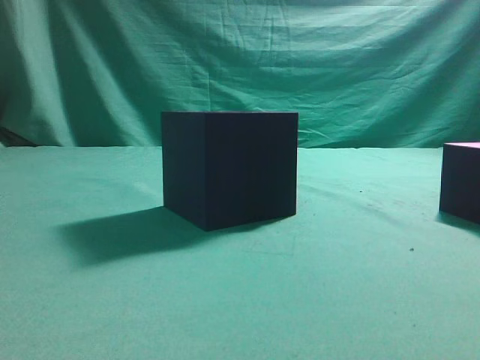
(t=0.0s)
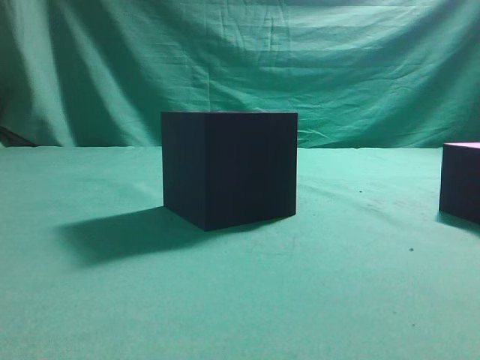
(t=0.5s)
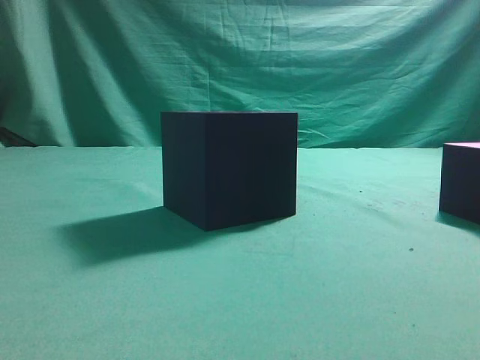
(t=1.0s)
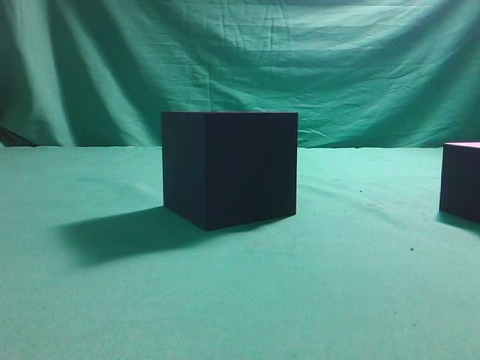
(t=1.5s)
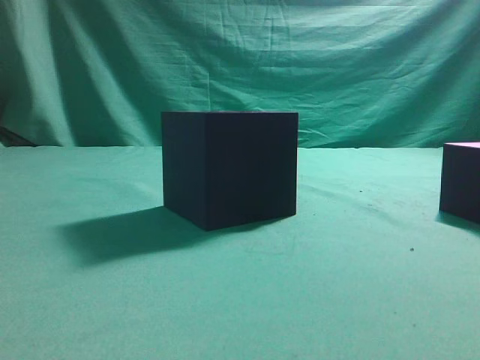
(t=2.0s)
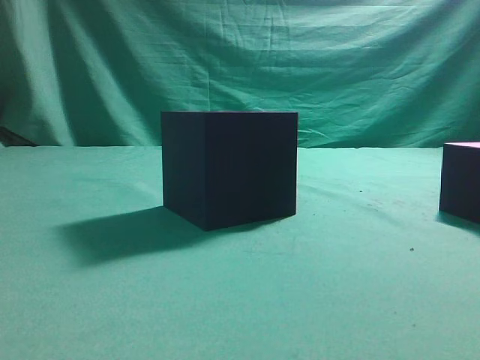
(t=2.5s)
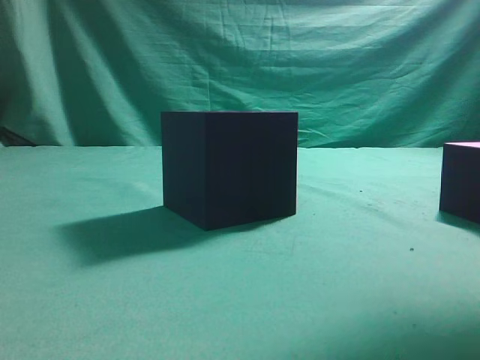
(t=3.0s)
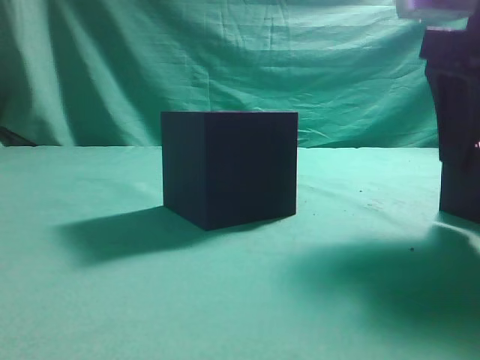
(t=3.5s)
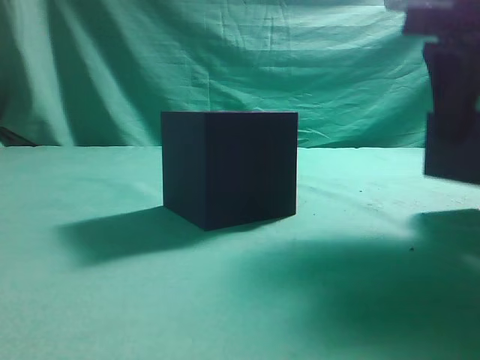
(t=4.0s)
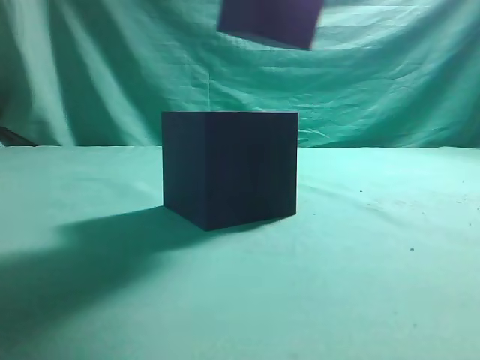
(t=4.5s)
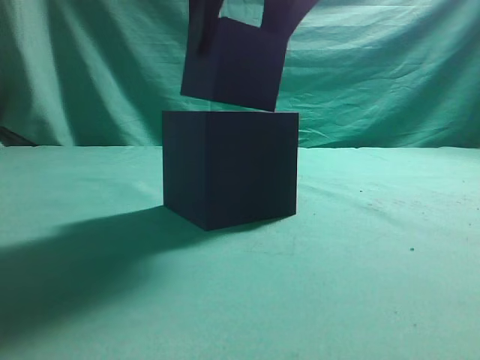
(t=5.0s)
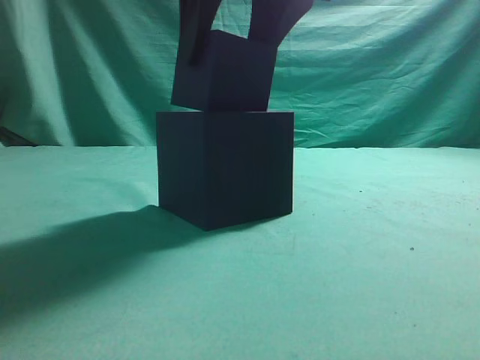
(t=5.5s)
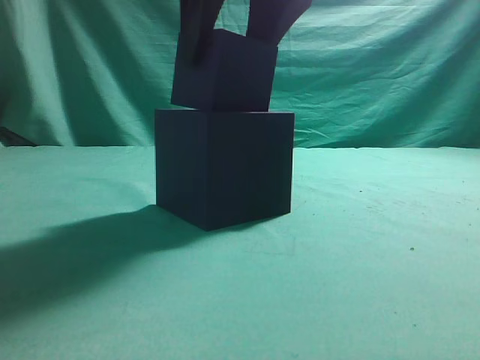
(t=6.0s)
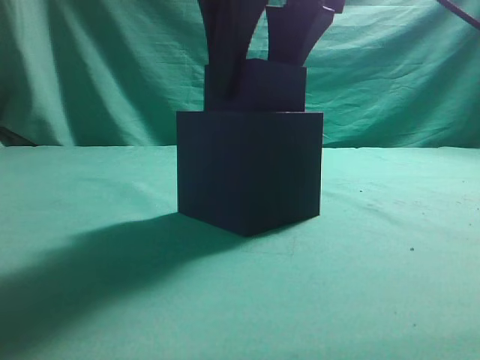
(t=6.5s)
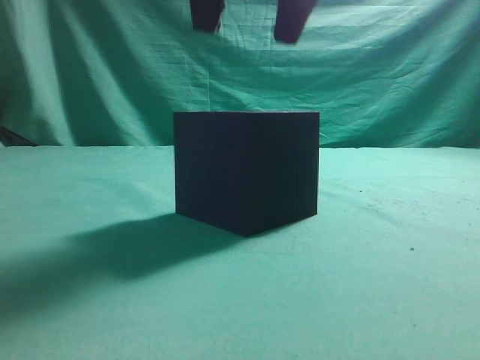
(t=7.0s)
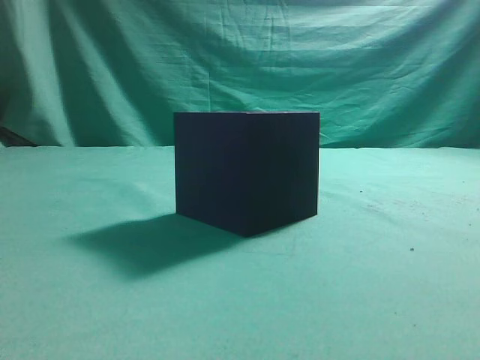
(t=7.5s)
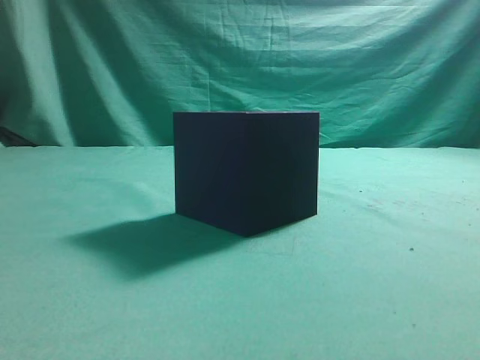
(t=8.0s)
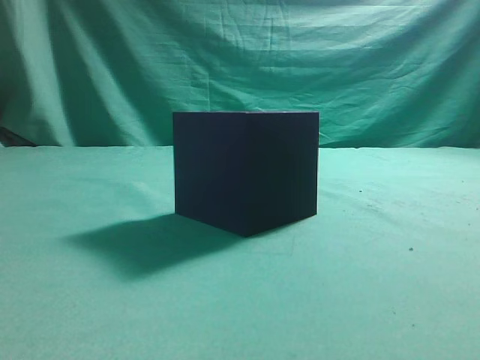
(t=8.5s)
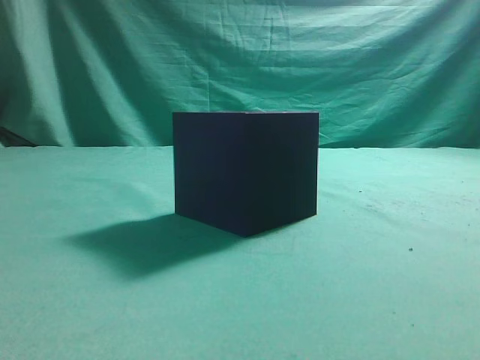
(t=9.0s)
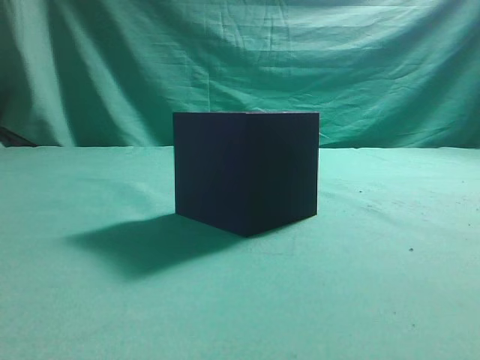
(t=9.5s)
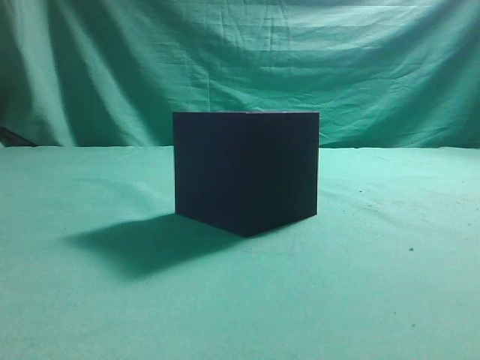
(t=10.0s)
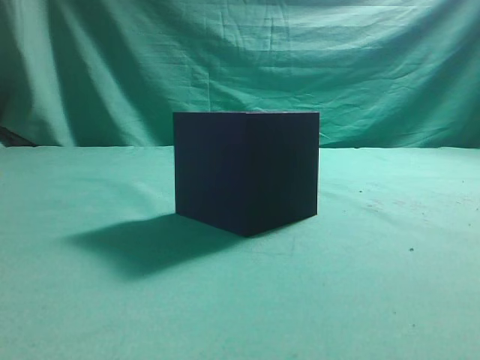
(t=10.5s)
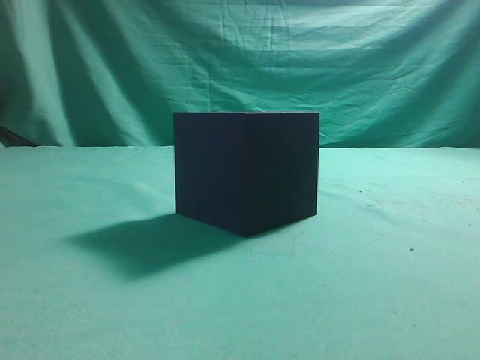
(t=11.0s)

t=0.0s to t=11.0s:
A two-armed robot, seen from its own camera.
Task of the whole recording: pick up the cube block and place it into the cube groove.
Step, t=0.0s to t=3.5s: Grasp the cube.
Step, t=4.0s to t=6.5s: Place cube into the cube-shaped recess.
t=2.0s to t=3.5s: The right gripper moves forward, downward and to the left, approximately 20 cm, and opens its fingers.
t=3.5s to t=5.5s: The right gripper moves to the left and upward, approximately 20 cm.
t=5.5s to t=7.5s: The right gripper is displaced upward by some 15 cm, and closes its fingers.
